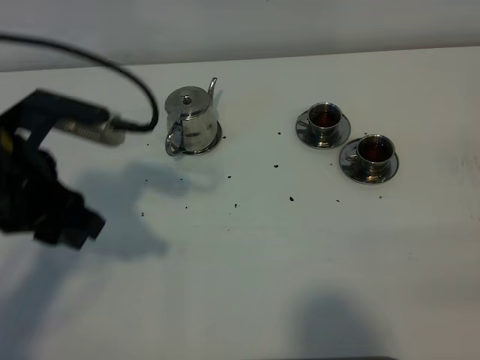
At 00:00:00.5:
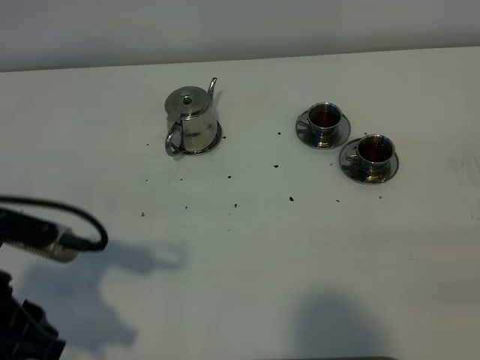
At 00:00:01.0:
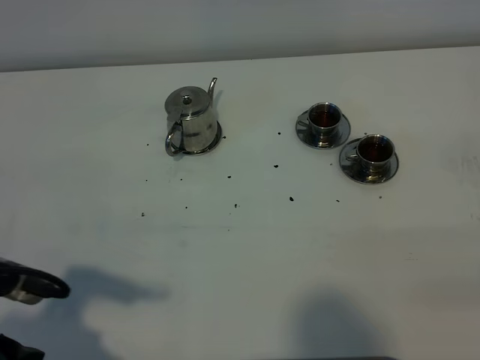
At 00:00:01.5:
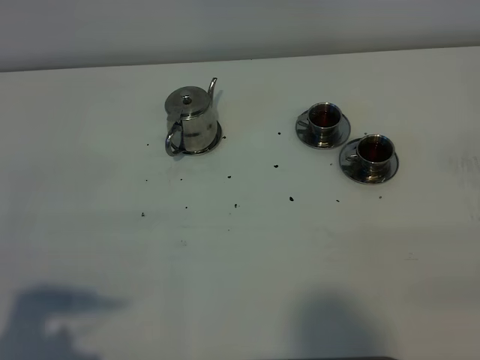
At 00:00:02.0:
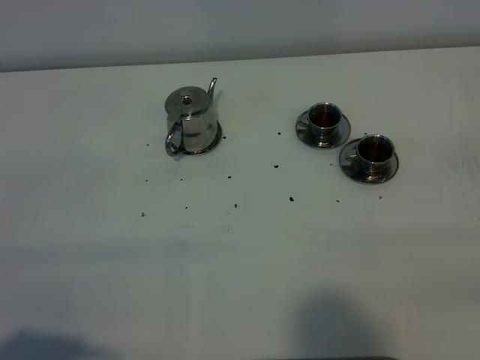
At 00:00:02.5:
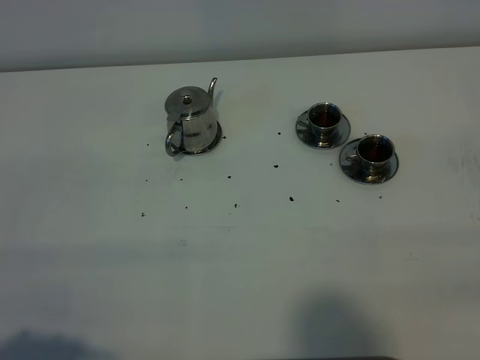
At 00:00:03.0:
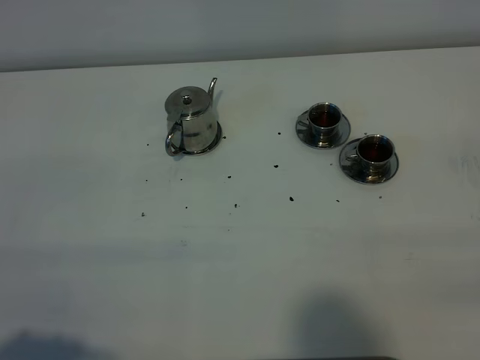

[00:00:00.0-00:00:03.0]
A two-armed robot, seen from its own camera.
Task of the whole recording: grasp the stainless steel teapot and pour the tea into the two stainless steel teacups one by one, put the stainless steel teapot back in its original place.
00:00:00.0 to 00:00:01.5: The left gripper goes some 20 cm backward and to the left.
00:00:01.5 to 00:00:03.0: There are only small adjustments of the grippers.
